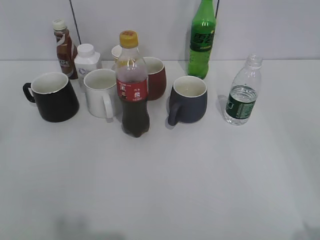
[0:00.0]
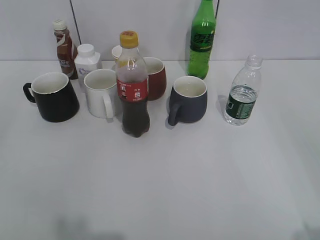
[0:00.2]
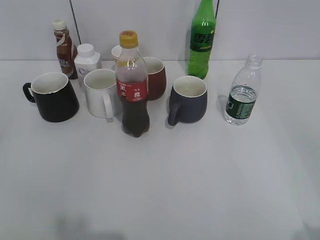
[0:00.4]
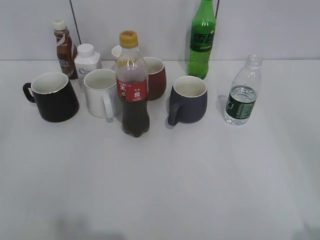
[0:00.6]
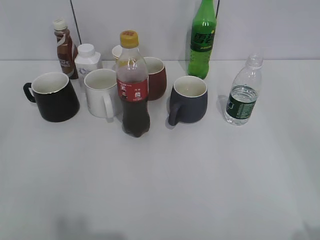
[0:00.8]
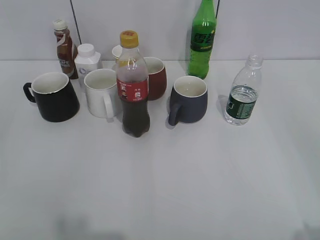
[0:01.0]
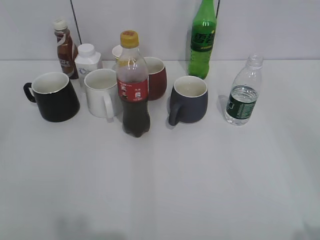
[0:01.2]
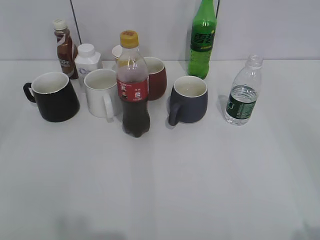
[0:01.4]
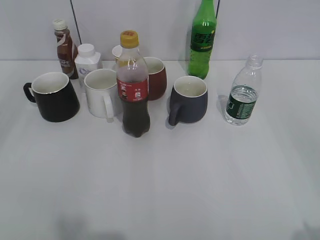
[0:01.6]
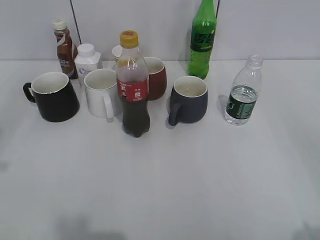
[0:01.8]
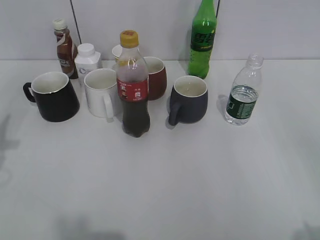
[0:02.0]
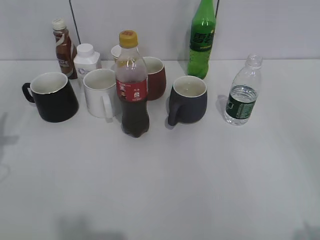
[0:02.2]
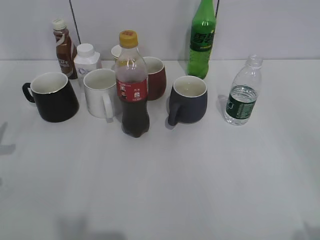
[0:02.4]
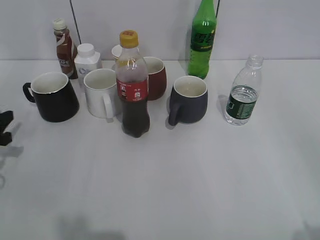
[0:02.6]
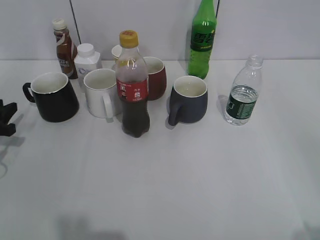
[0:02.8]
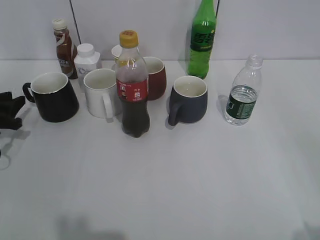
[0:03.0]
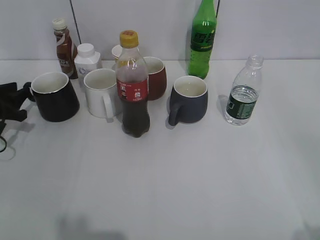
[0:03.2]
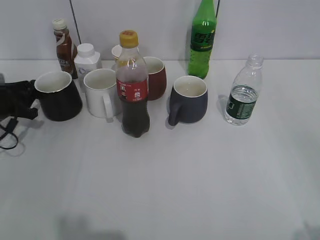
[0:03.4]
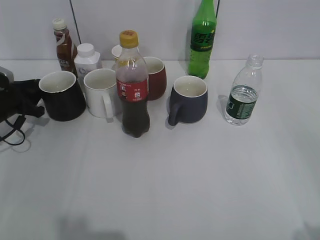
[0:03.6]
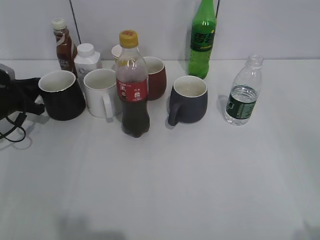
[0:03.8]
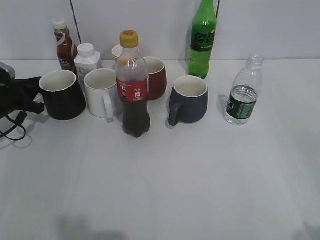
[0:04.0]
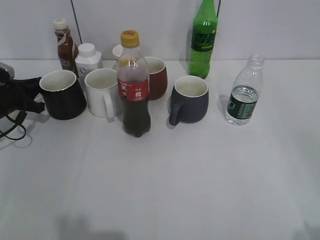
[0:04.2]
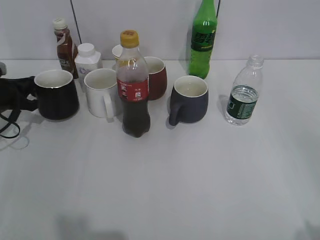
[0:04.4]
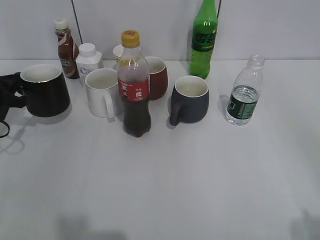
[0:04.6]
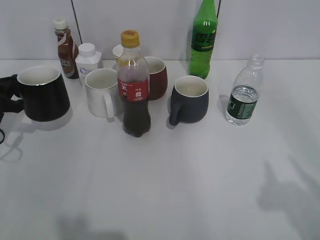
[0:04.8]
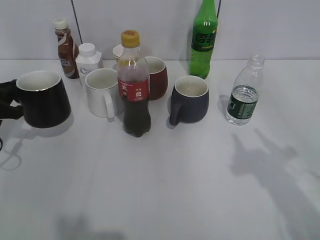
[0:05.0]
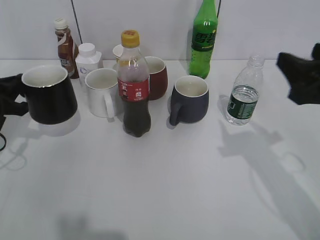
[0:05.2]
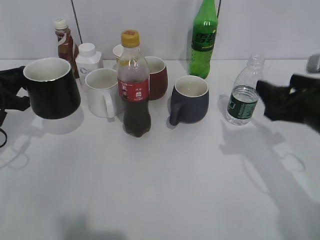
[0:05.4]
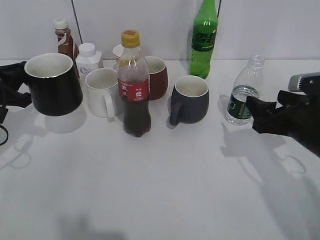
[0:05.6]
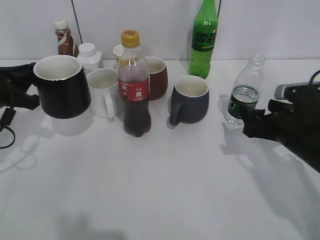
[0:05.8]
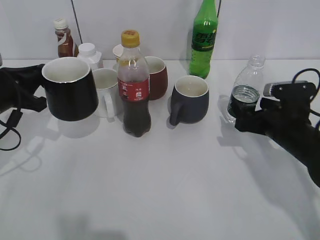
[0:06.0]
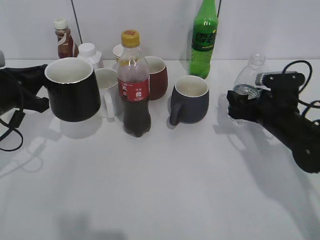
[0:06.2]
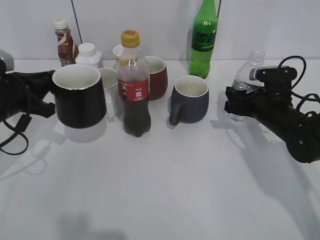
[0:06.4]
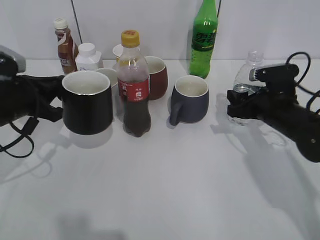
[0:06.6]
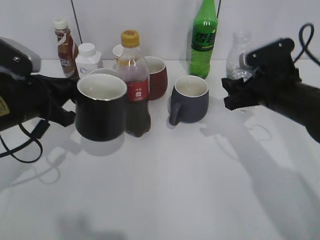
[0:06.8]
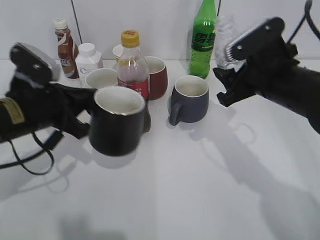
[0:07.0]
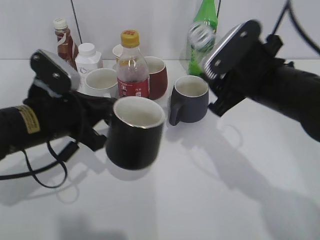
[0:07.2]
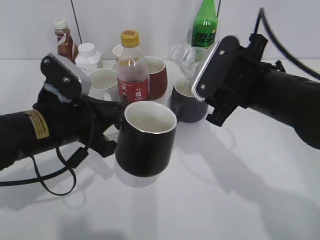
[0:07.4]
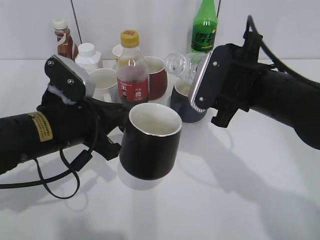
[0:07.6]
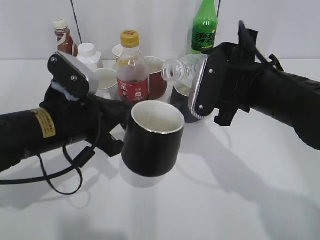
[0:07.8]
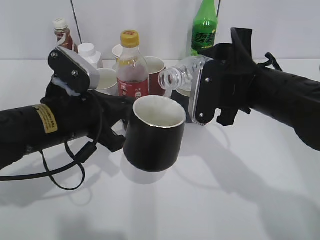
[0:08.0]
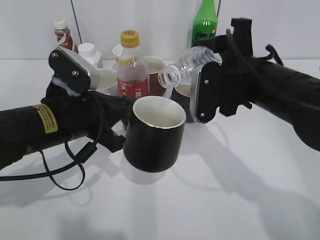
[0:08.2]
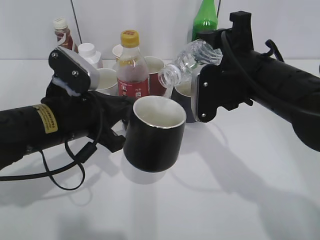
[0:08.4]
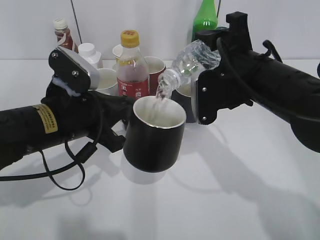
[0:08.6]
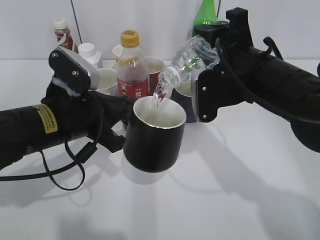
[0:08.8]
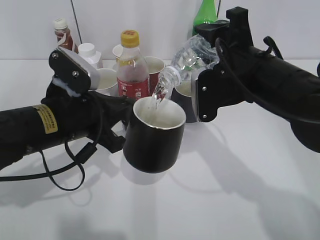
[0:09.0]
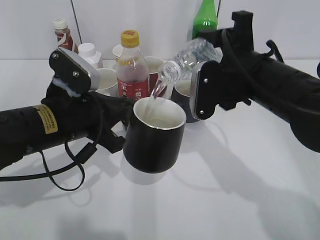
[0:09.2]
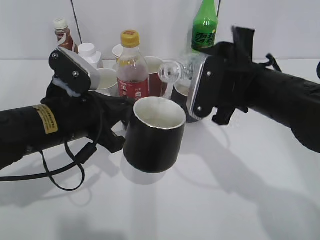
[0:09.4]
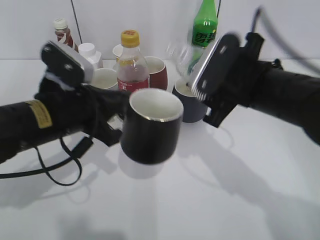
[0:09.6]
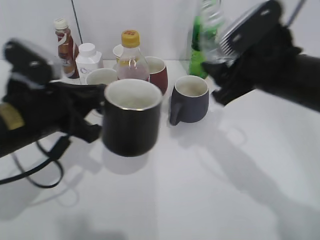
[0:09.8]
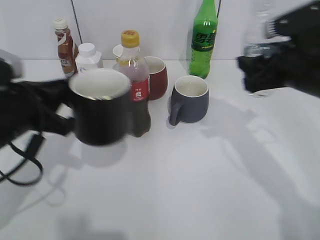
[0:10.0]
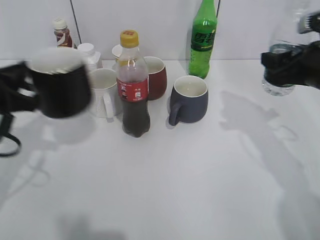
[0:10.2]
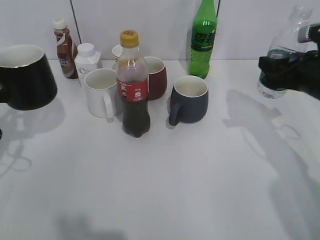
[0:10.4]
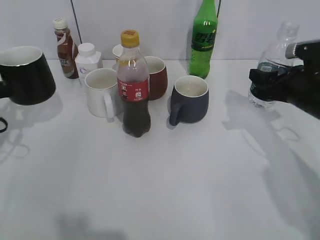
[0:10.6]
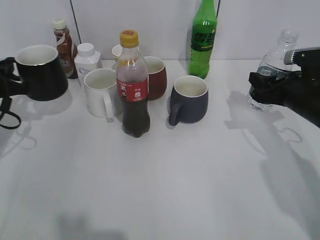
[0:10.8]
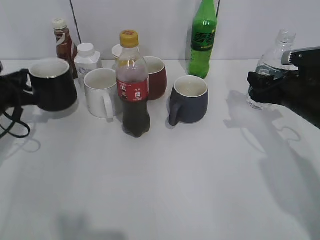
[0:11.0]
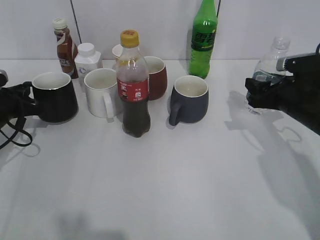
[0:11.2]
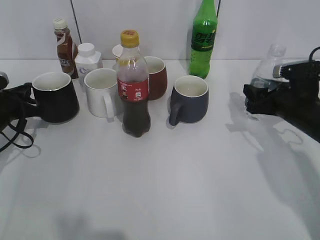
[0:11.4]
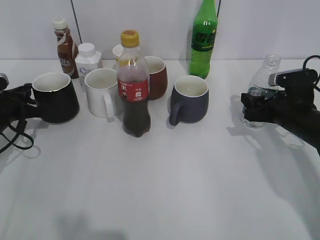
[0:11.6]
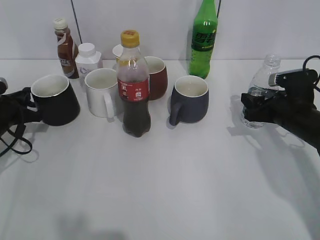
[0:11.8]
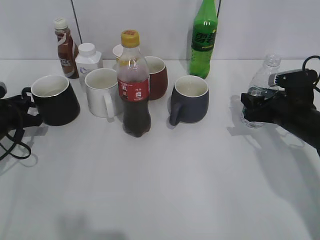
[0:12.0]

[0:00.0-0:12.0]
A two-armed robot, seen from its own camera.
Step, 0:01.0 to 0:04.0: Grasp the black cup with left gripper.
Step, 0:04.2 to 0:05.2: Lift the black cup with left gripper.
Step, 0:05.4 to 0:06.4: Grasp the bottle with water with right gripper.
Step, 0:06.6 to 0:09.4: Pour the water from bottle to cup with right gripper.
0:01.6 to 0:03.0: The left gripper travels forward and downward by approximately 40 cm.
0:03.0 to 0:04.4: The left gripper goes about 5 cm forward, and closes its fingers.
0:04.4 to 0:06.0: The left gripper is displaced backward, upward and to the right by roughly 15 cm. The right gripper is displaced forward and downward by roughly 35 cm, and closes, then reopens.
0:06.0 to 0:07.6: The left gripper moves to the right and backward, about 15 cm. The right gripper moves upward and to the left, approximately 15 cm, and closes.
0:09.0 to 0:10.4: The right gripper goes roughly 15 cm to the right; the left gripper heads to the left, covering approximately 15 cm.
0:10.4 to 0:12.0: The left gripper shifts some 15 cm downward and forward. Meanwhile the right gripper goes approximately 10 cm downward.

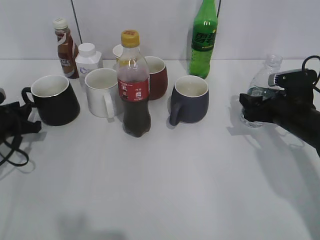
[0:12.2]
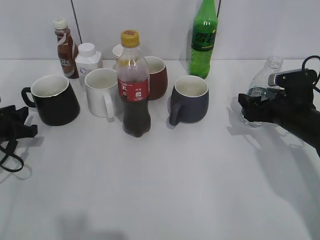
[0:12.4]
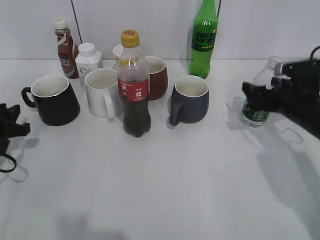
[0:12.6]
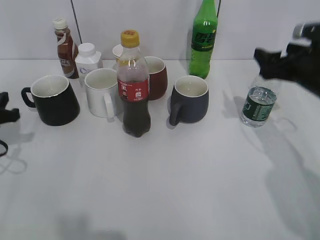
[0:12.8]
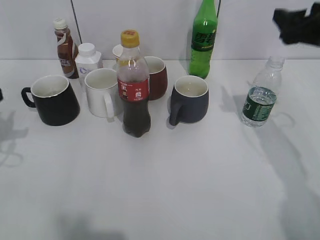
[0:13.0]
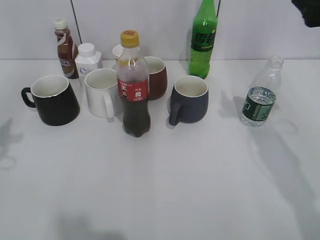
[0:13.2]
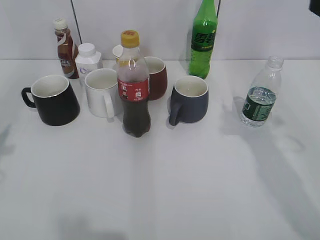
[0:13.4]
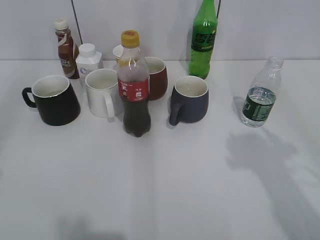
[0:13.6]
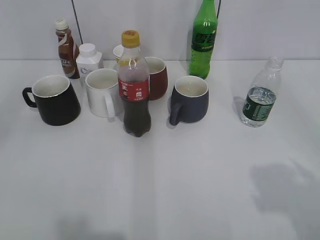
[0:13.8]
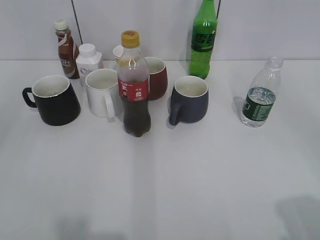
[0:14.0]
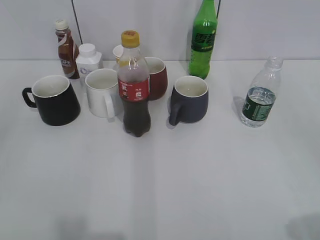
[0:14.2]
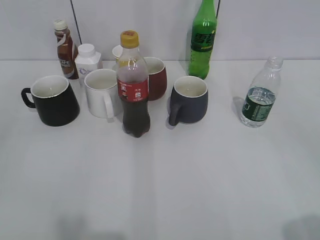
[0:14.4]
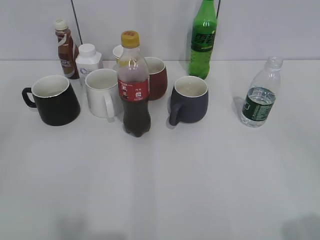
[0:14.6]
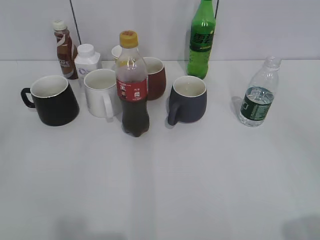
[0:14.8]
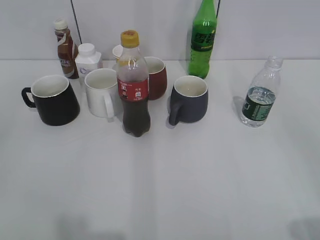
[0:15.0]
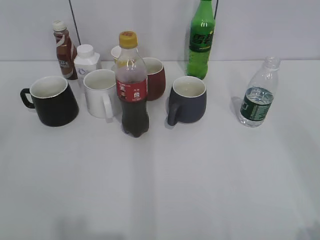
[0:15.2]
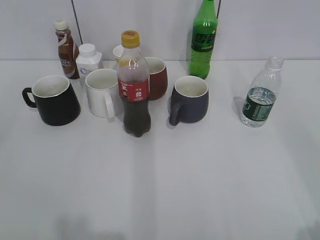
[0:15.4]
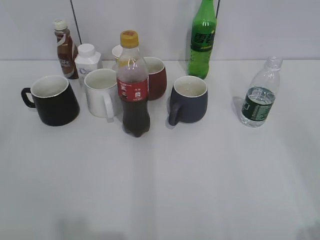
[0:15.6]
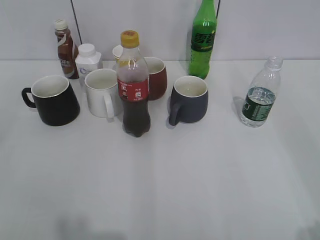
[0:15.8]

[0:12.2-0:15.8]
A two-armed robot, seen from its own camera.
0:12.2 to 0:14.0: Both grippers travel together backward and upward, roughly 40 cm. The right gripper opens its fingers; the left gripper opens its fingers.

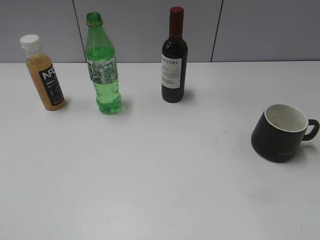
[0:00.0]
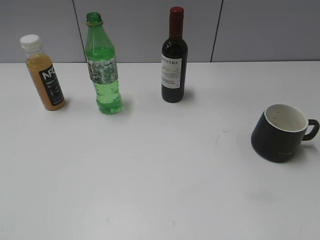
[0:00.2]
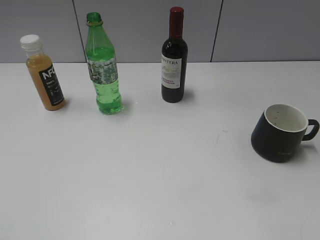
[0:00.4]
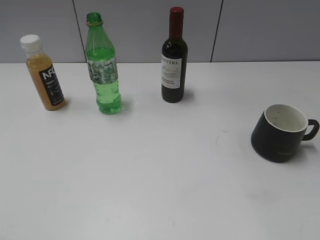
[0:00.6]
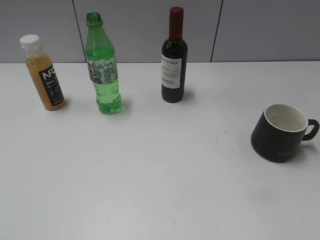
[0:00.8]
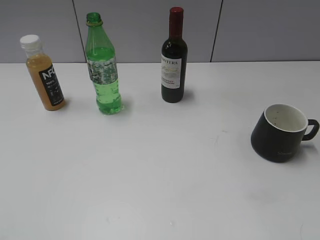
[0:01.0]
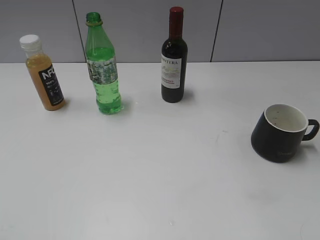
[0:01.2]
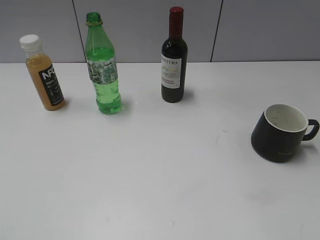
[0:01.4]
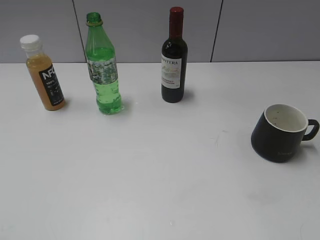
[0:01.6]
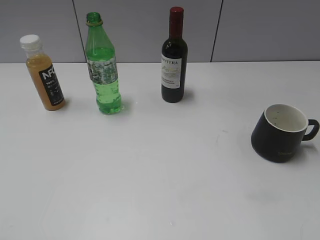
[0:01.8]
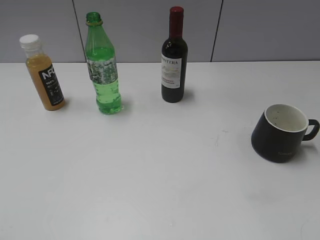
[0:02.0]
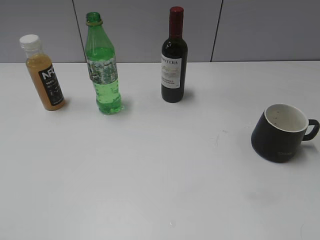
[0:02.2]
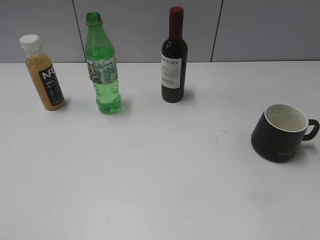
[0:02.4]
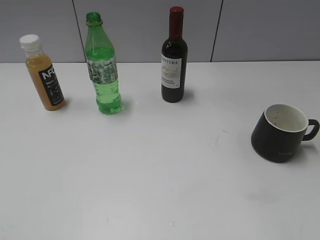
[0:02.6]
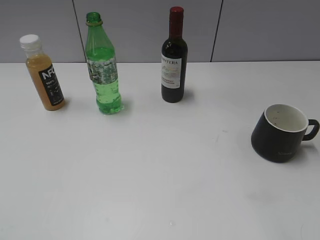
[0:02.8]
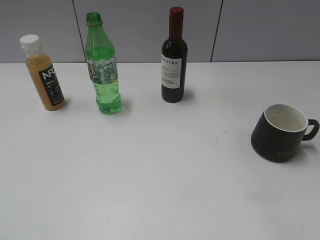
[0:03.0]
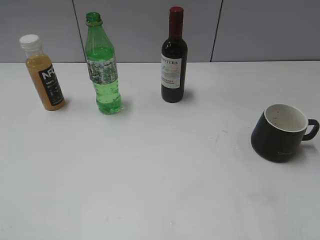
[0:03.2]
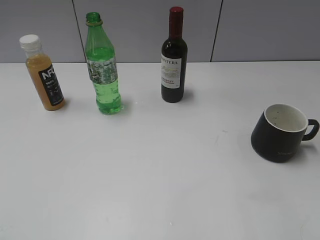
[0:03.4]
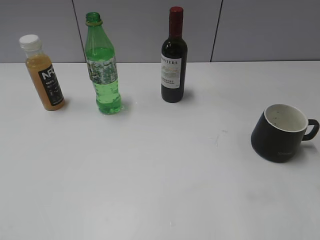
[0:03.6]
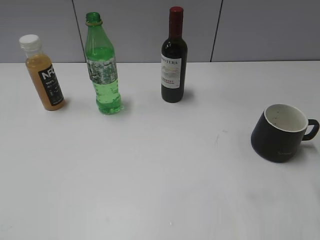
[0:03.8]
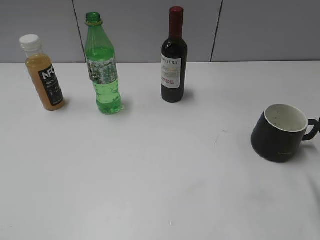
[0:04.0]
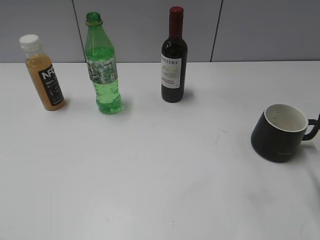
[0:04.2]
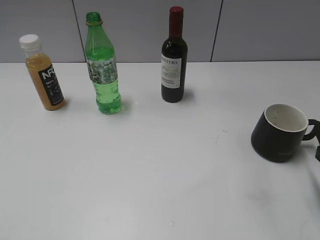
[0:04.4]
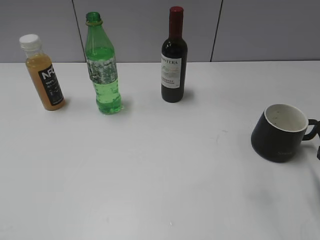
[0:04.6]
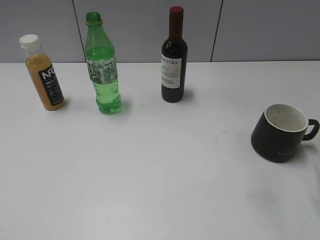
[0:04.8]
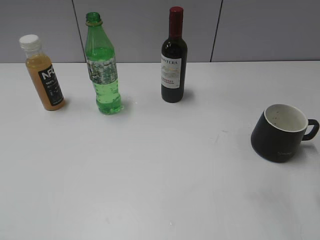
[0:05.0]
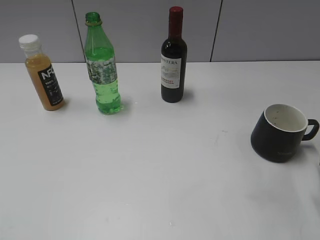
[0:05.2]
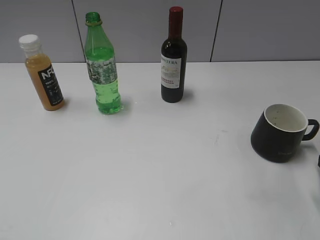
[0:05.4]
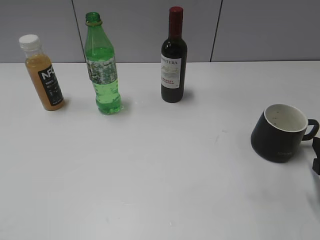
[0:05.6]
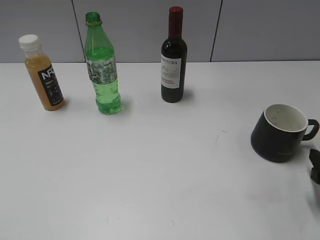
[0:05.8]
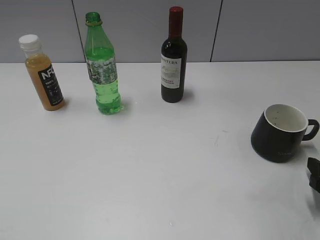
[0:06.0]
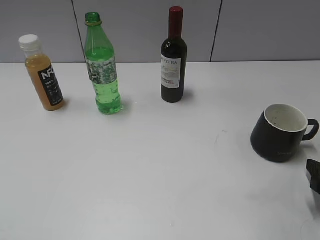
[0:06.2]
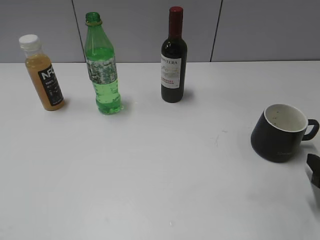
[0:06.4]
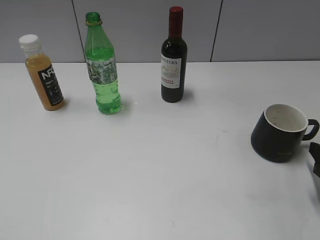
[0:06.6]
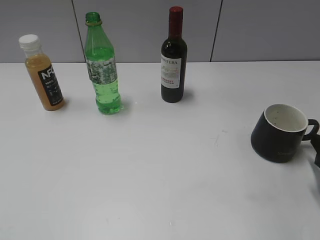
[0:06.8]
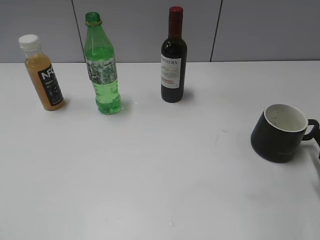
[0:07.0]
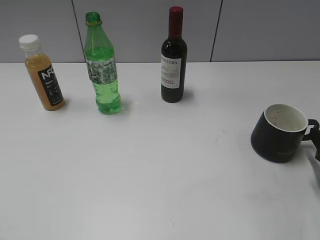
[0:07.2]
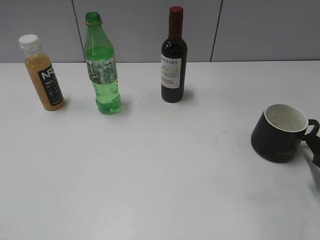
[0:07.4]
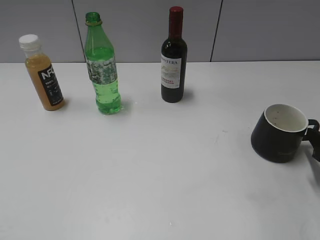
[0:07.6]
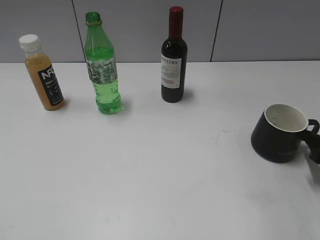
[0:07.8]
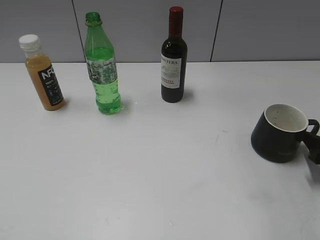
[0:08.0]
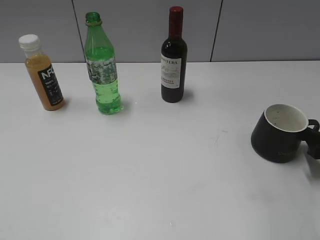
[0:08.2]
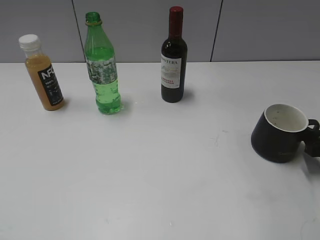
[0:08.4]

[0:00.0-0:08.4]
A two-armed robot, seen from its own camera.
0:07.0 to 0:08.4: The right gripper moves approximately 5 cm.
